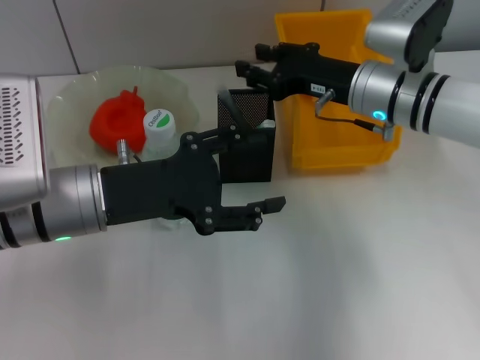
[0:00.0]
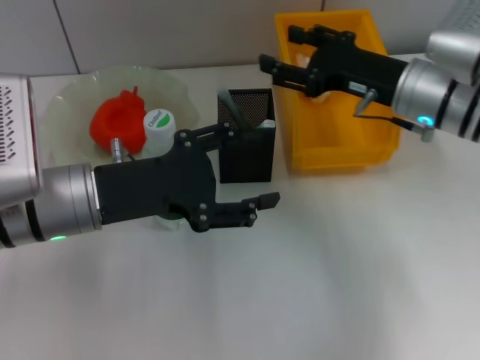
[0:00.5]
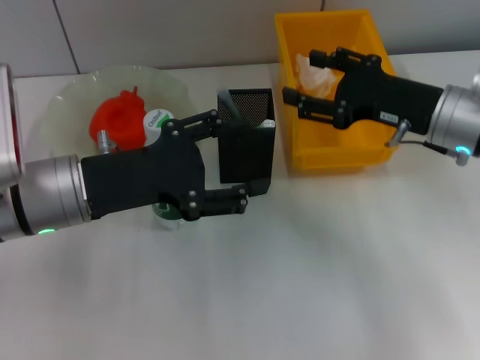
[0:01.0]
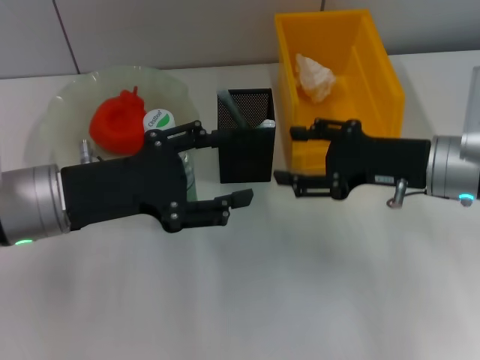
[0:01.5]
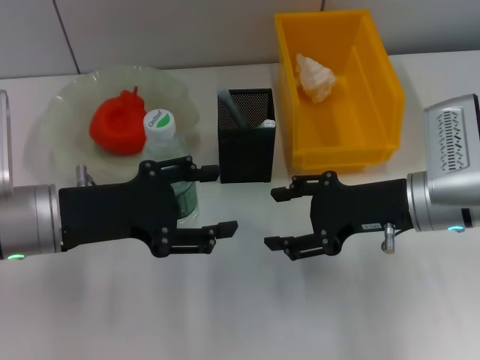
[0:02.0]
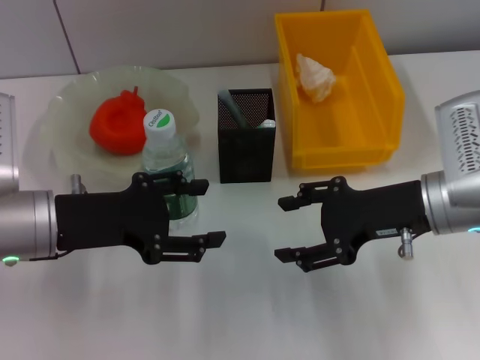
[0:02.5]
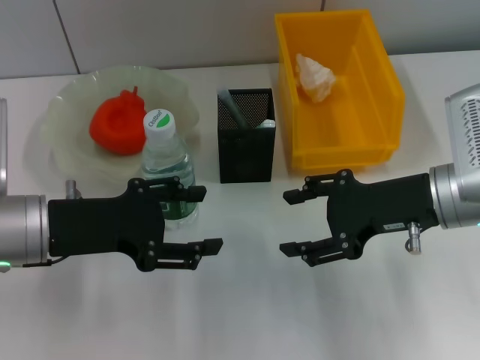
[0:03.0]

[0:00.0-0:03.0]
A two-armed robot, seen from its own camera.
0:00.0 to 0:01.5: The right gripper goes roughly 10 cm backward and to the right, and opens up.
